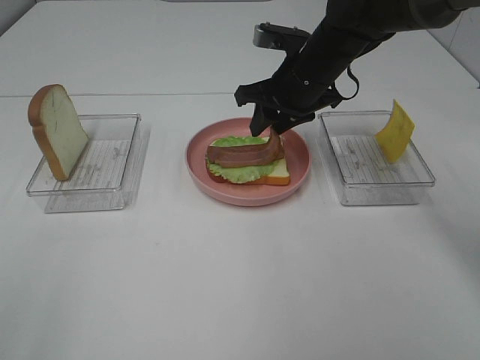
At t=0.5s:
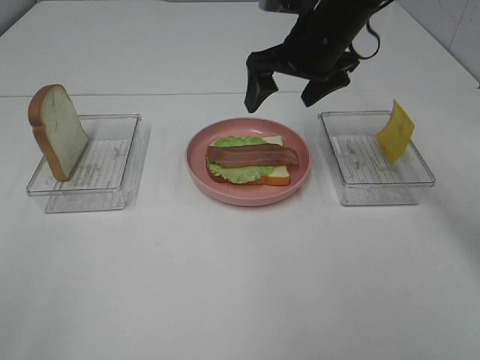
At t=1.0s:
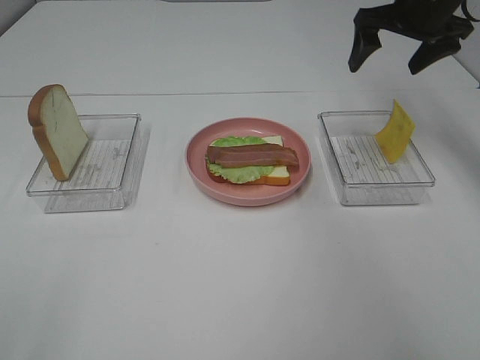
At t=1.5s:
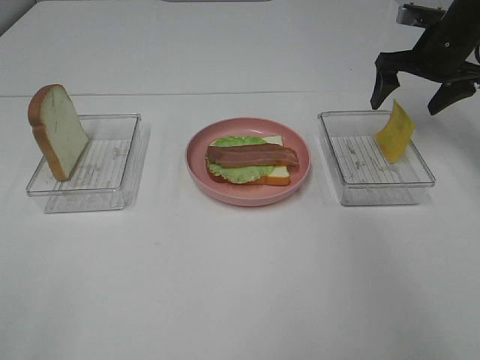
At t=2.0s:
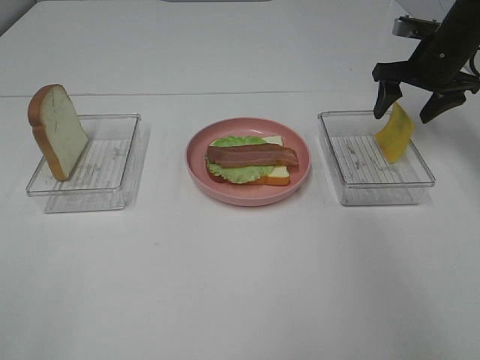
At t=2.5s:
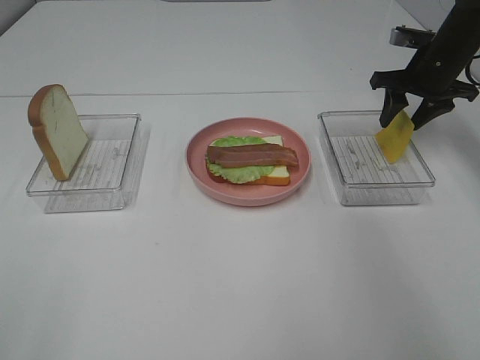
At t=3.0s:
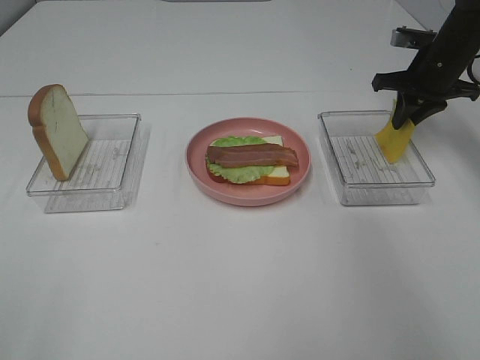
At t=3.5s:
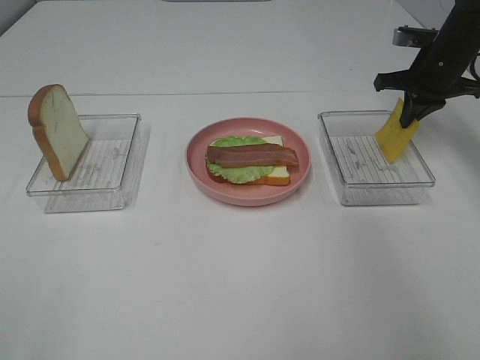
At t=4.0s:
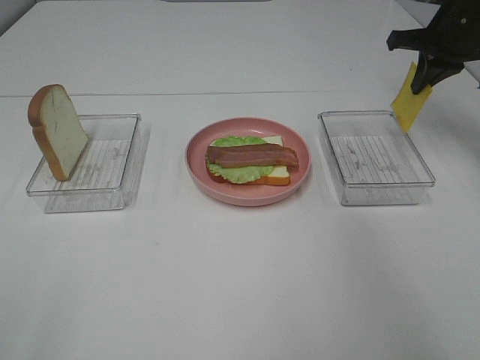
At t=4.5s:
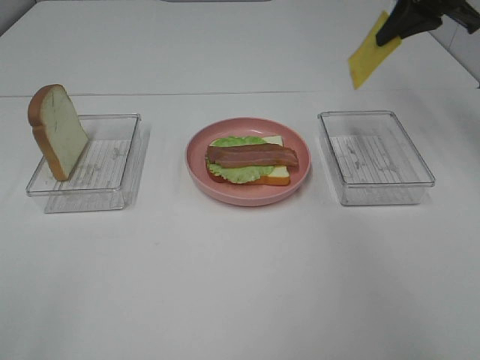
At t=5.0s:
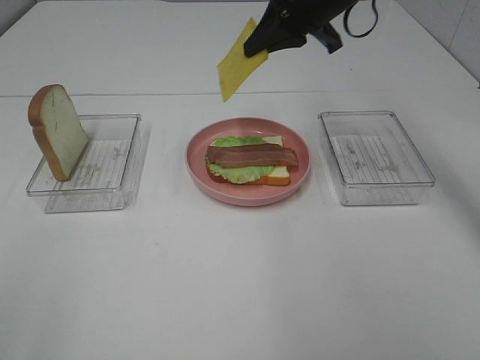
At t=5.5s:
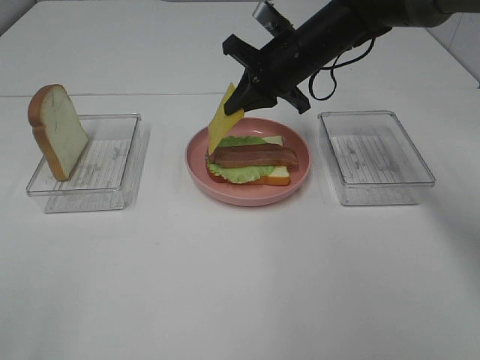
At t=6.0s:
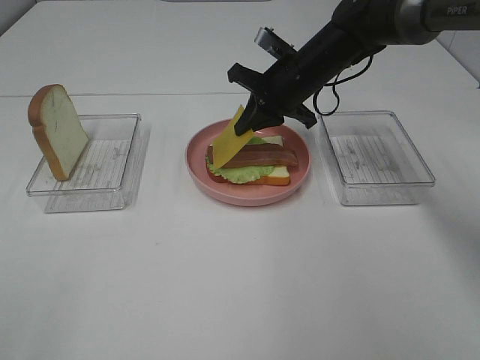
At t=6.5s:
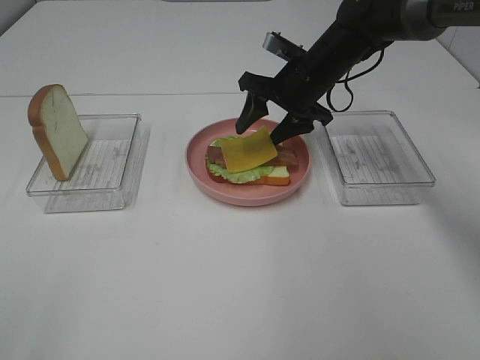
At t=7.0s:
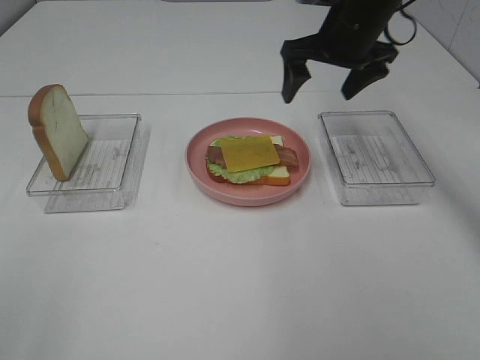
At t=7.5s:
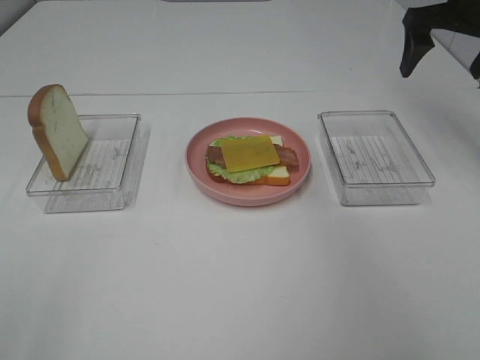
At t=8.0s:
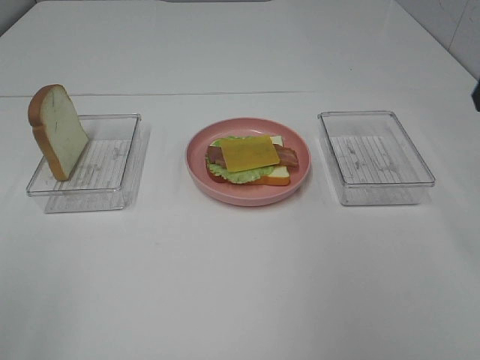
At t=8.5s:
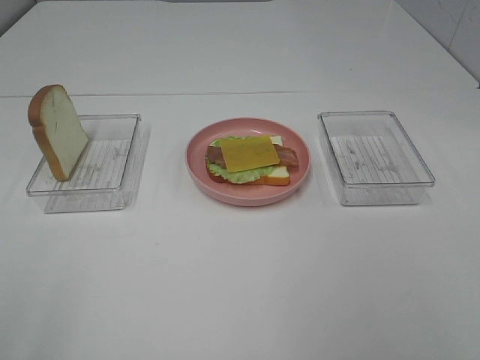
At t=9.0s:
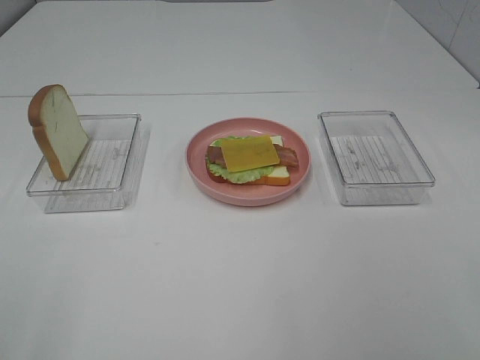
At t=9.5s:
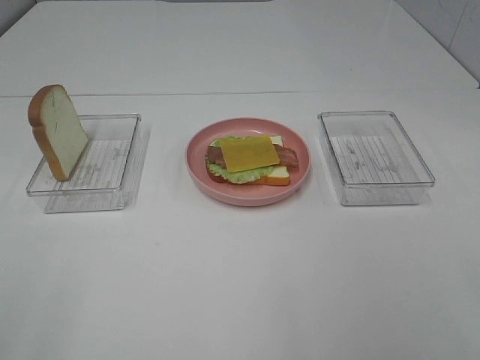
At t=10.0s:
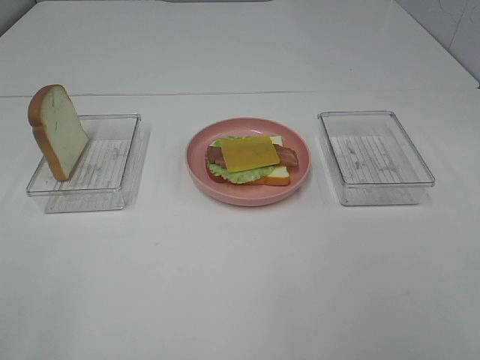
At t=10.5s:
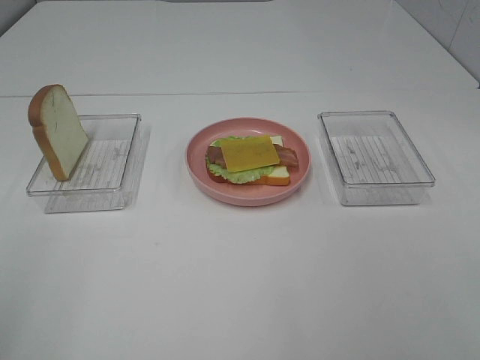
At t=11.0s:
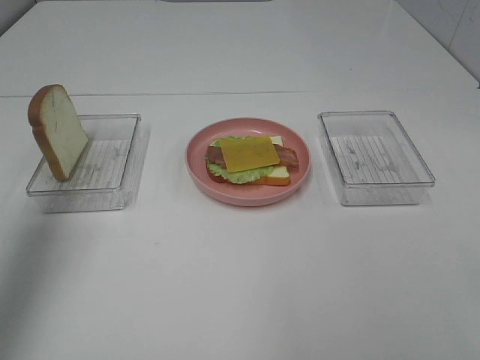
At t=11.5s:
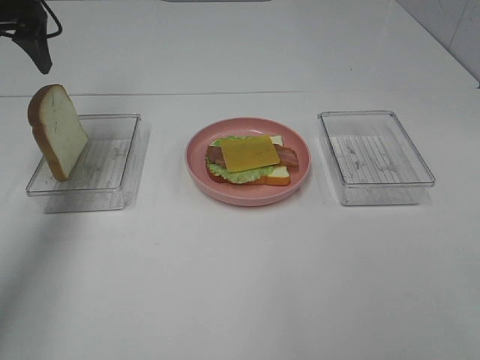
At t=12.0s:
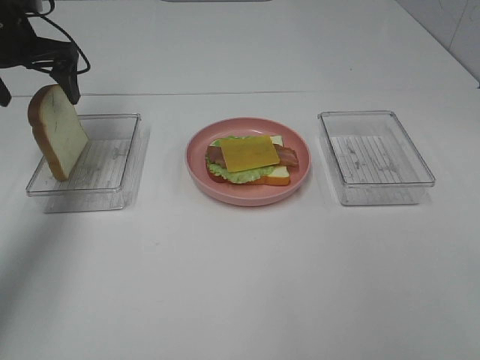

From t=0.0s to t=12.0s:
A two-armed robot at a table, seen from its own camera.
Task of the whole recording: Make sandwiches.
Step, from t=0.5s to t=3.0s: Right hand:grab the cheese slice.
Step, from t=3.5s to t=6.5s: Right hand:place the cheese slice on top of the bacon.
From t=0.0s to t=2.0s: The right gripper is displaced to the right by roughly 20 cm.
From t=2.0s to t=4.0s: The right gripper is displaced upward by roughly 5 cm, and closes its fingers.
From t=4.0s to t=6.0s: The right gripper travels to the left and downward by some 20 cm.
From t=6.0s to t=8.0s: The right gripper travels backward, to the right and upward by approximately 35 cm, and opens.
From t=10.0s to t=12.0s: The left gripper goes some 50 cm forward.

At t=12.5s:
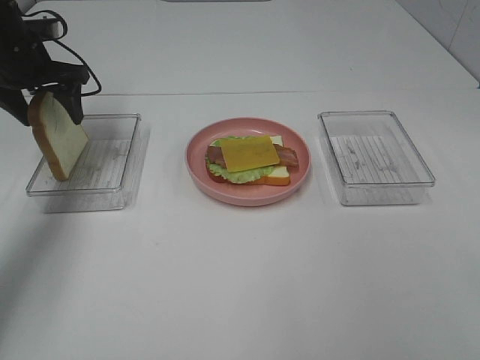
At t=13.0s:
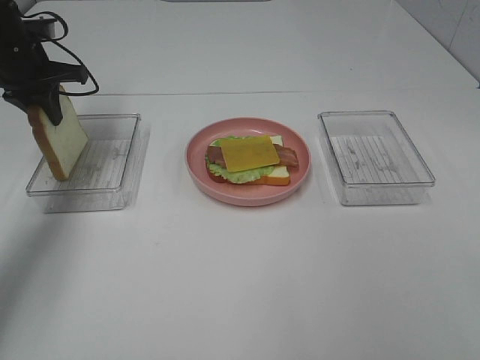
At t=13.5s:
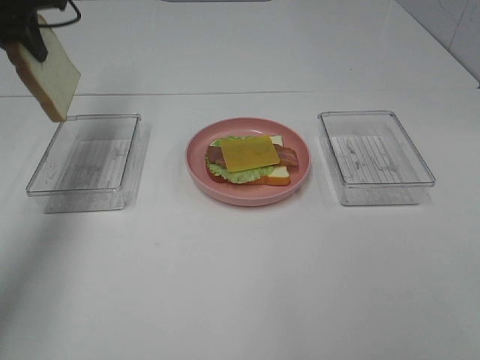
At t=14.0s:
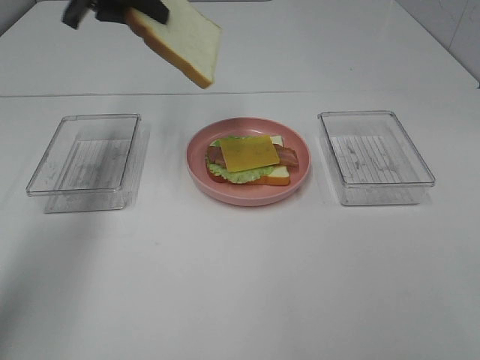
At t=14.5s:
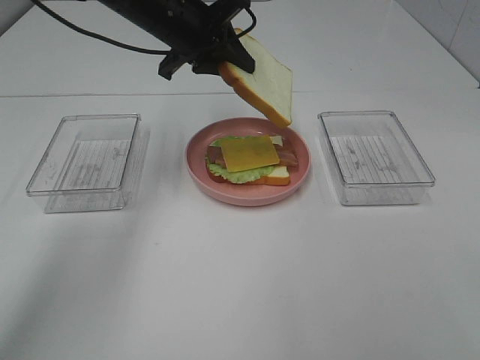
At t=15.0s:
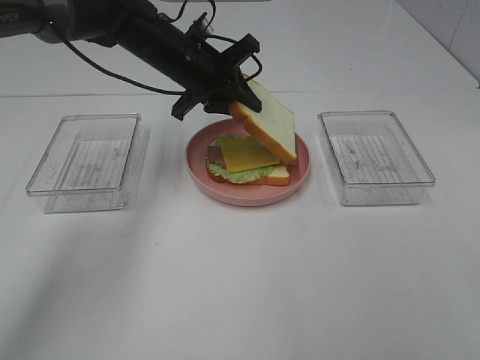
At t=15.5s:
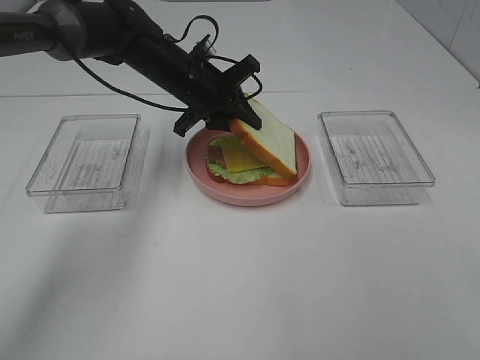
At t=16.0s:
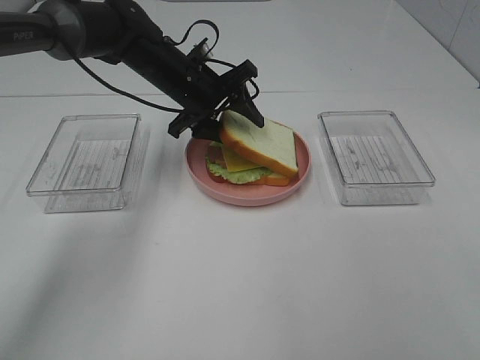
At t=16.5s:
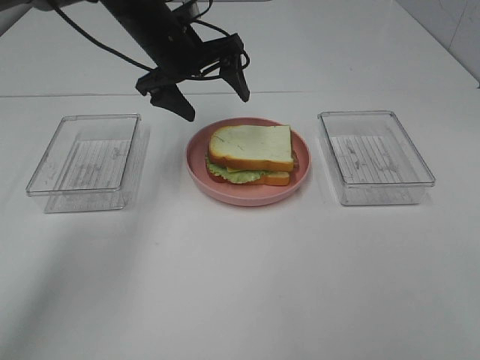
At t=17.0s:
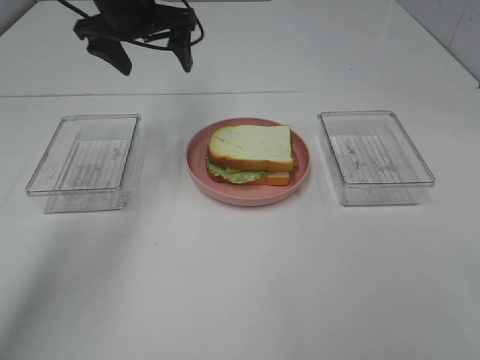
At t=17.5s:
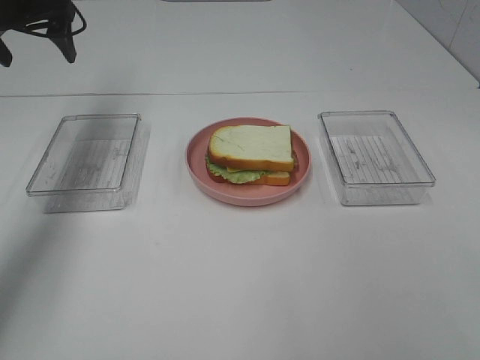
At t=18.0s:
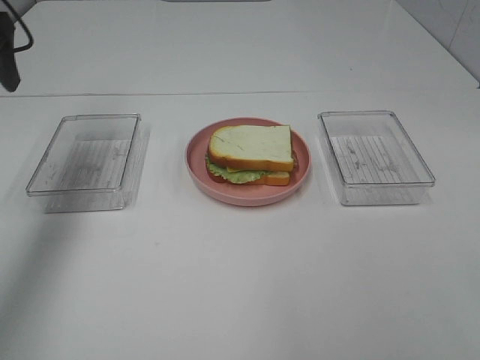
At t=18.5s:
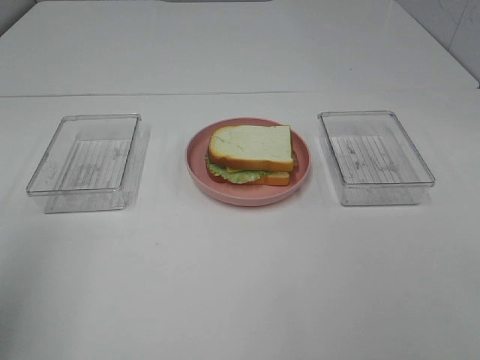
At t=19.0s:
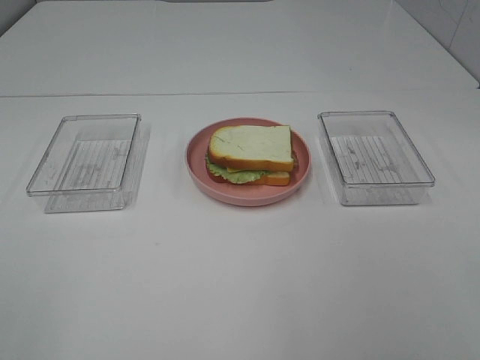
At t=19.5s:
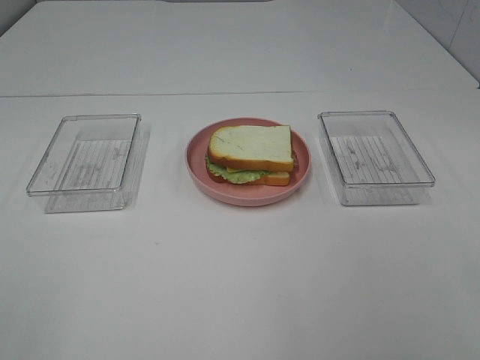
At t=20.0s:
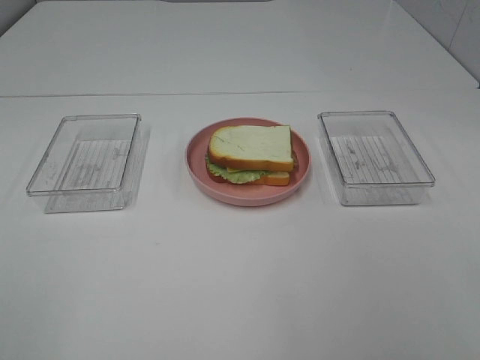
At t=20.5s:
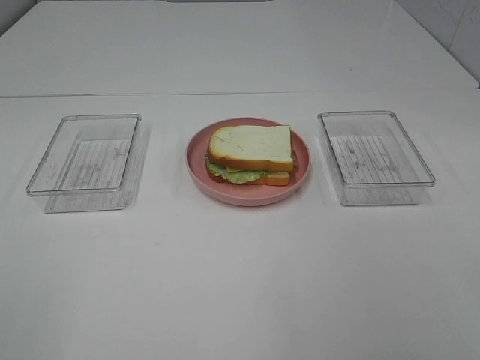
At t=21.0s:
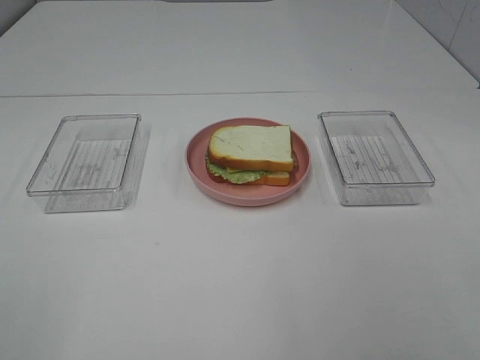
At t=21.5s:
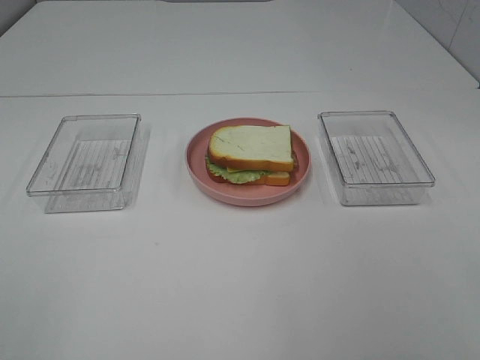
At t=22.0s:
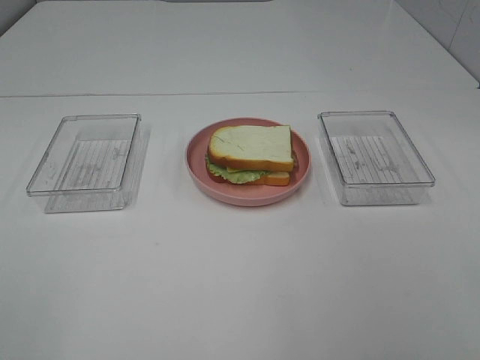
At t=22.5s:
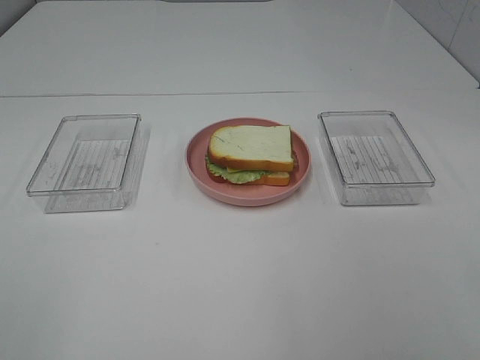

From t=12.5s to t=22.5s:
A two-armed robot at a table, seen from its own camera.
Task of the whole recording: Make sandwiches.
Step, from t=13.0s to t=16.5s: Left hand:place bacon on bacon.
From t=12.5s to t=14.5s: The left gripper shifts approximately 20 cm to the right, and closes its fingers.
From t=14.5s to t=16.5s: The left gripper goes downward and returns, some 10 cm each way, and opens.
From t=16.5s to t=18.5s: The left gripper is displaced backward and to the left by about 40 cm.
From t=20.5s to t=22.5s: Both grippers stay about where they are.

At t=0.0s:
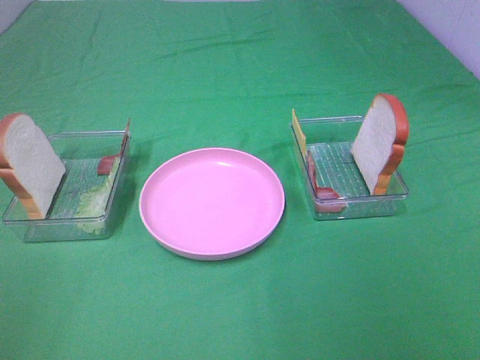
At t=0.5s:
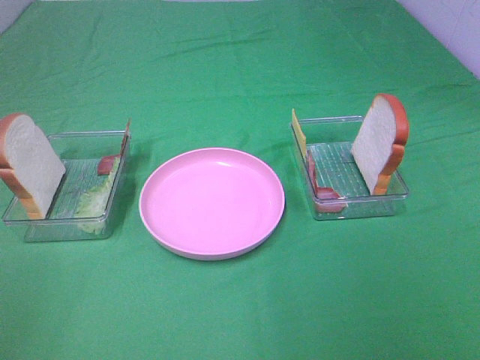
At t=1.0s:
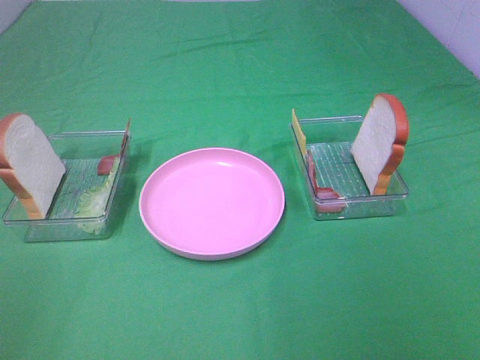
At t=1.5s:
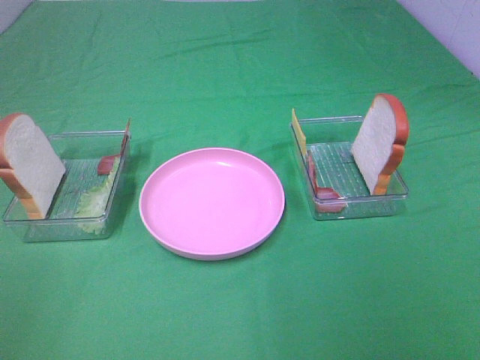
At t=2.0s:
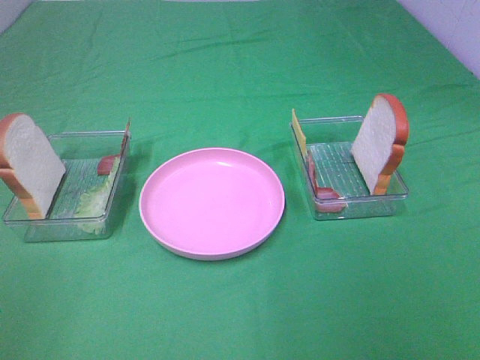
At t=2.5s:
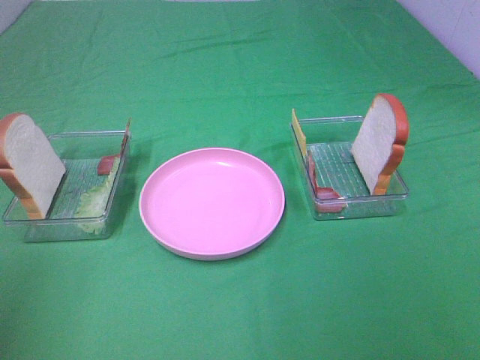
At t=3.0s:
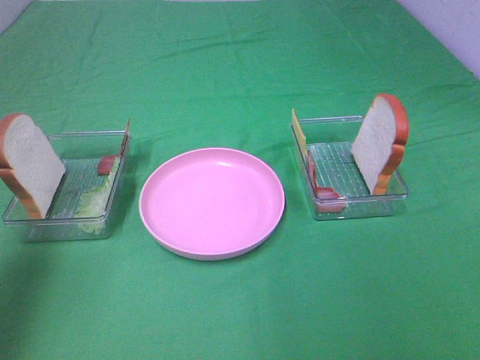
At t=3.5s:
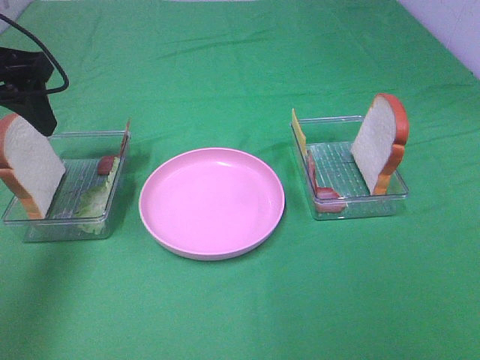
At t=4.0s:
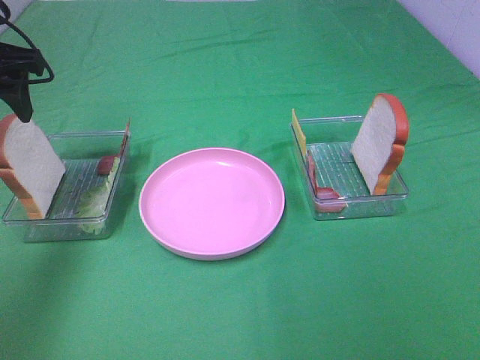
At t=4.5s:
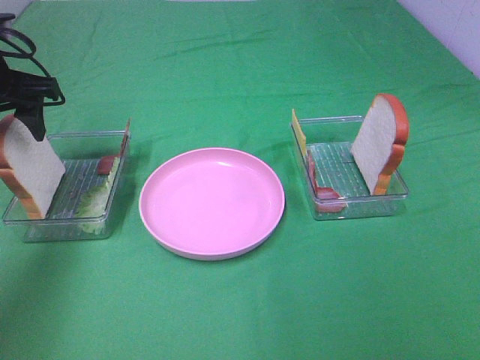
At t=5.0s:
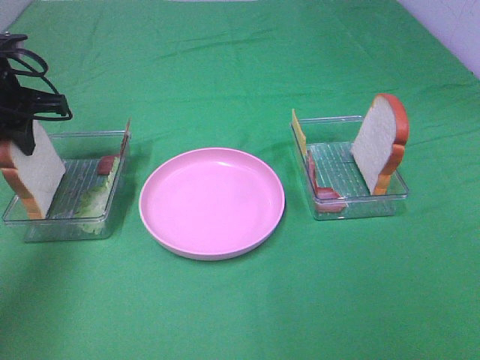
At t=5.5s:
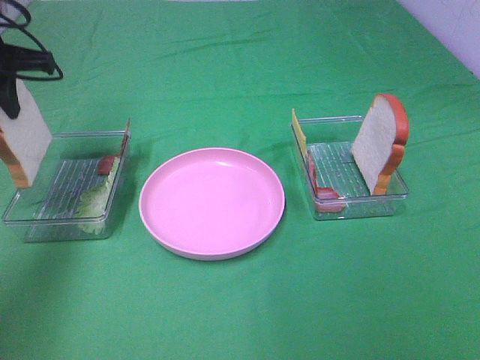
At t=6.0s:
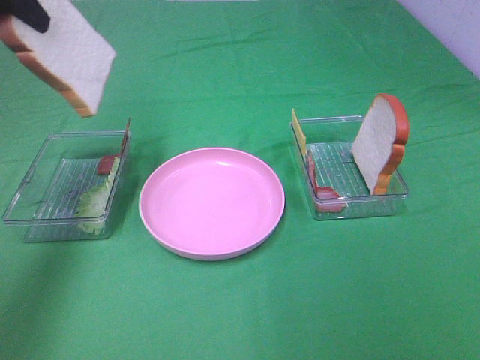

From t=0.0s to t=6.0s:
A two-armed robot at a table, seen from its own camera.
Task of the whole recording: Make sandwiches.
Step, from t=0.0s to t=5.0s: Left hand:grab the bread slice.
From t=2.0s to t=4.0s: The left gripper is displaced forward by roughly 35 cm.
From t=4.0s to t=6.0s: The left gripper goes approximately 10 cm upward, and closes up.
